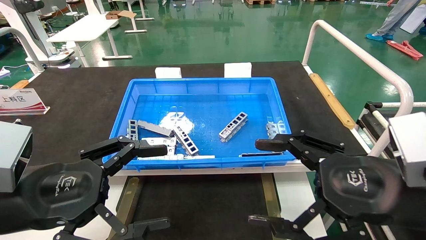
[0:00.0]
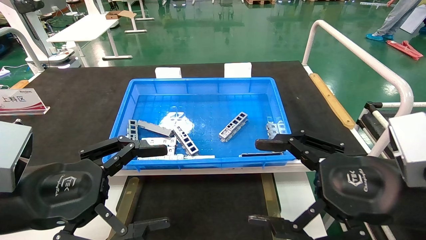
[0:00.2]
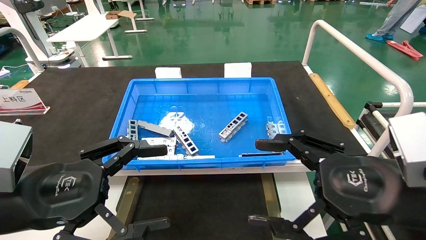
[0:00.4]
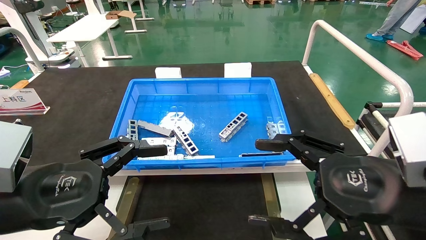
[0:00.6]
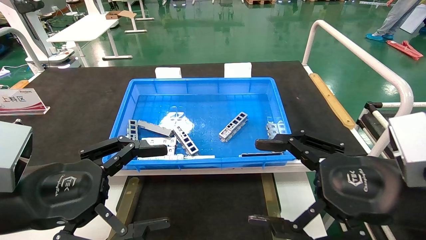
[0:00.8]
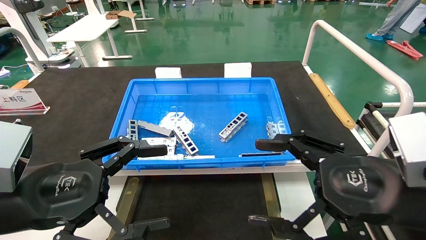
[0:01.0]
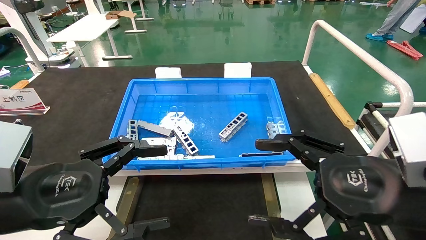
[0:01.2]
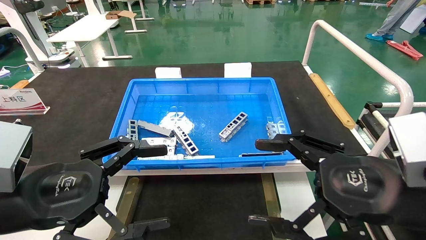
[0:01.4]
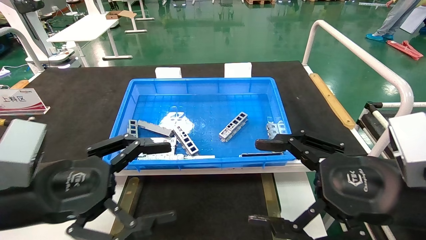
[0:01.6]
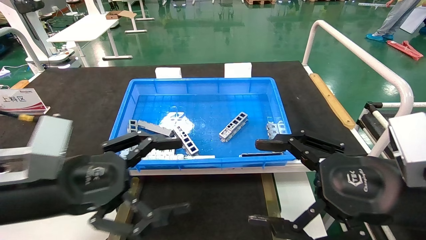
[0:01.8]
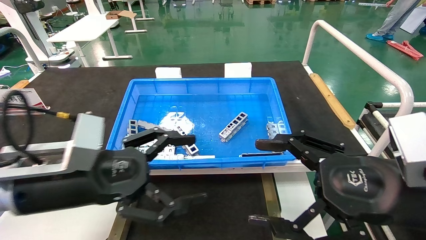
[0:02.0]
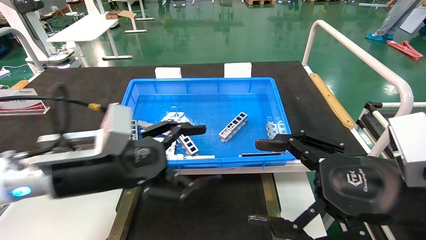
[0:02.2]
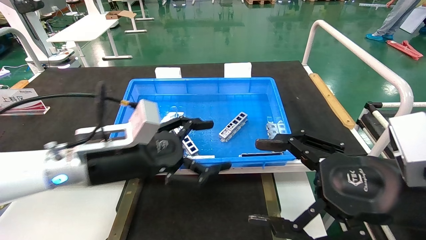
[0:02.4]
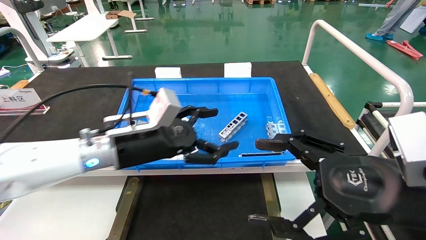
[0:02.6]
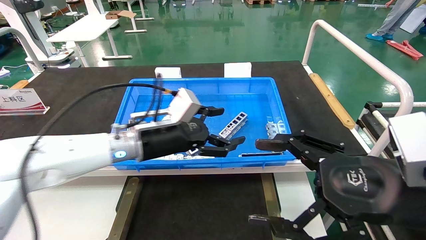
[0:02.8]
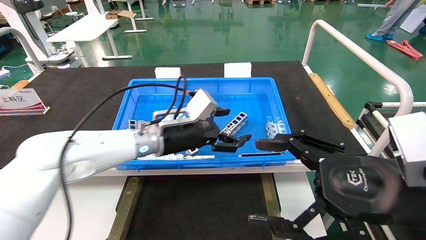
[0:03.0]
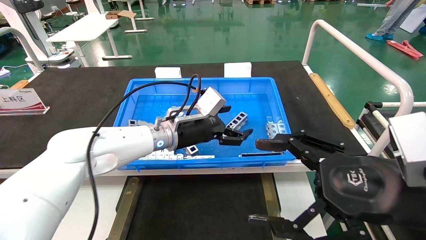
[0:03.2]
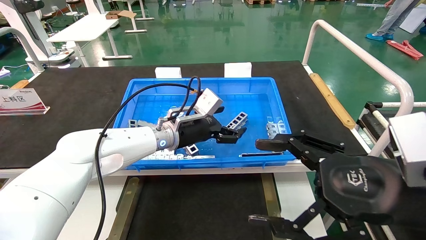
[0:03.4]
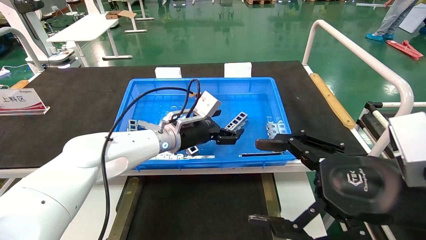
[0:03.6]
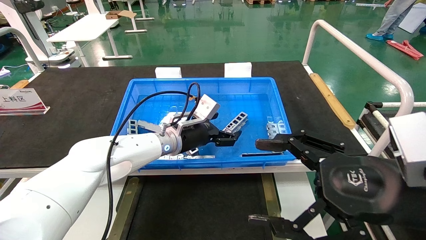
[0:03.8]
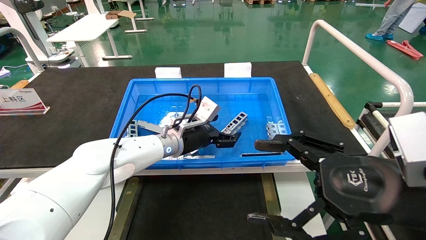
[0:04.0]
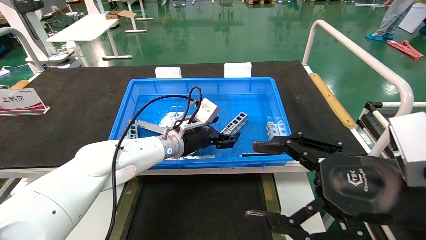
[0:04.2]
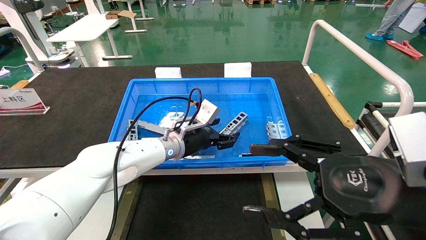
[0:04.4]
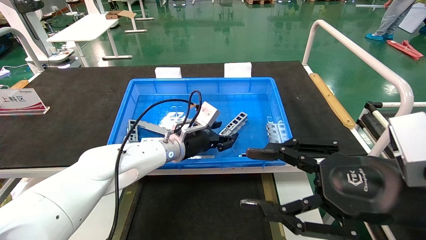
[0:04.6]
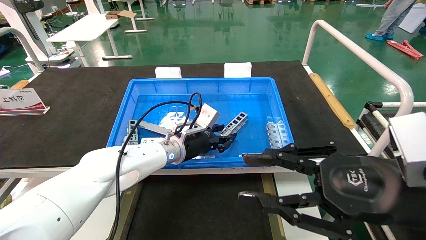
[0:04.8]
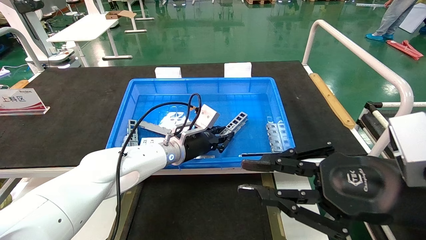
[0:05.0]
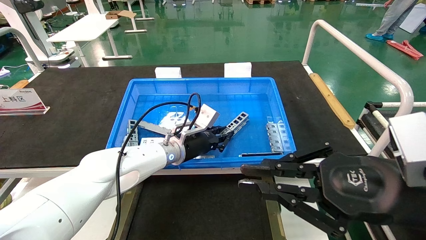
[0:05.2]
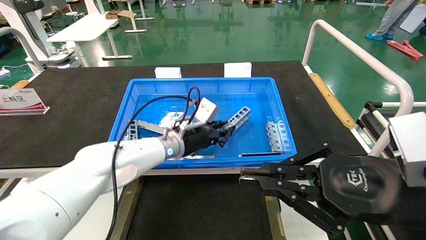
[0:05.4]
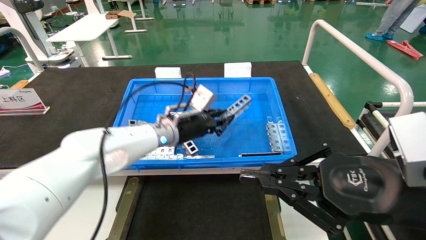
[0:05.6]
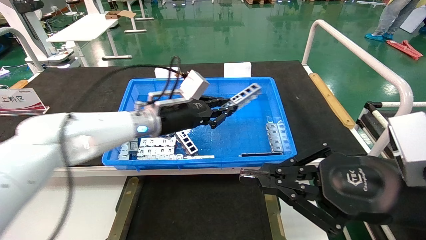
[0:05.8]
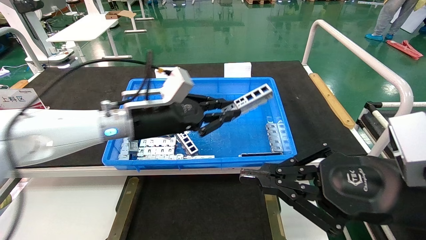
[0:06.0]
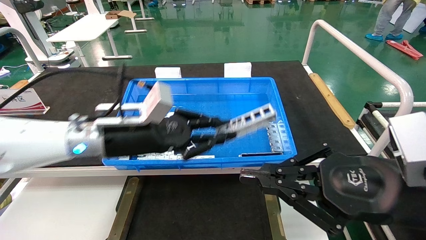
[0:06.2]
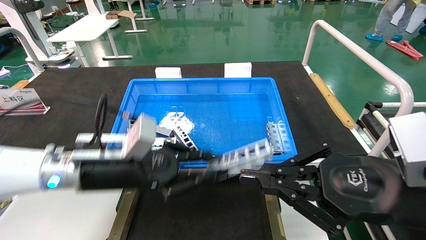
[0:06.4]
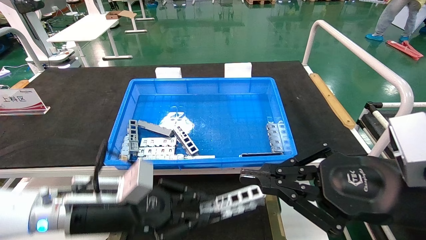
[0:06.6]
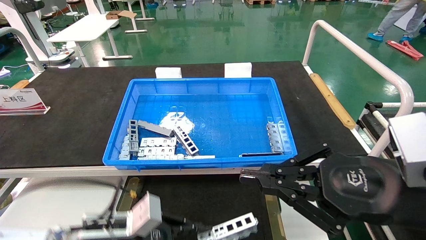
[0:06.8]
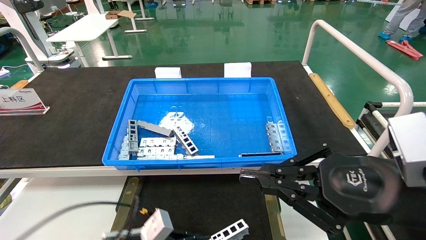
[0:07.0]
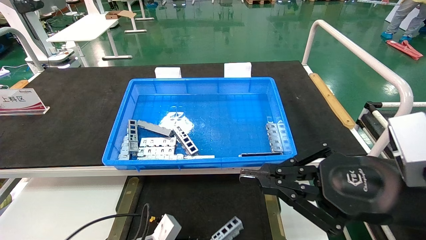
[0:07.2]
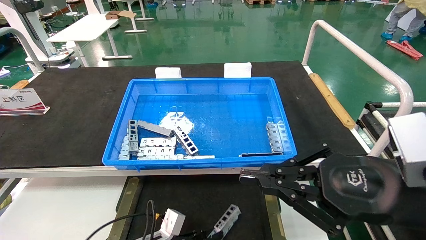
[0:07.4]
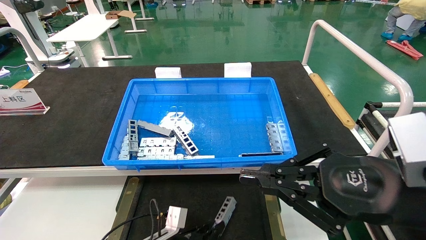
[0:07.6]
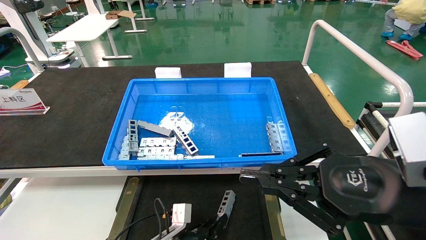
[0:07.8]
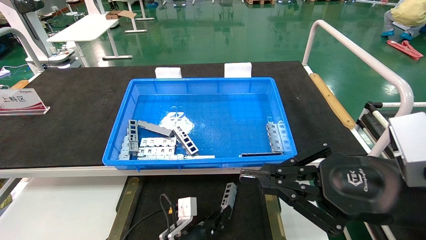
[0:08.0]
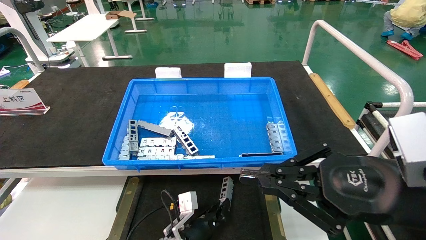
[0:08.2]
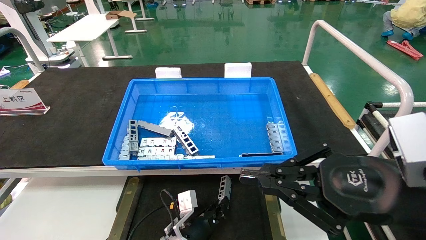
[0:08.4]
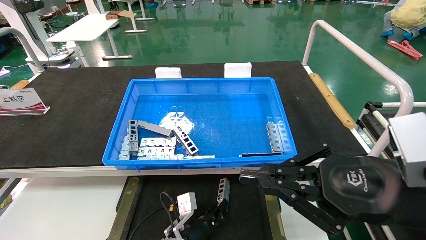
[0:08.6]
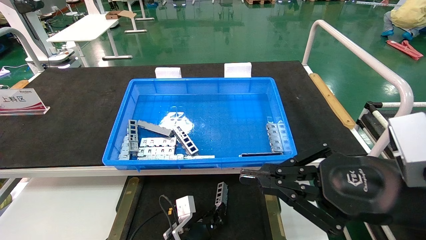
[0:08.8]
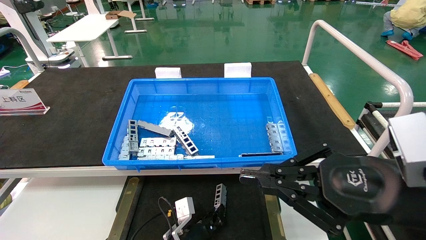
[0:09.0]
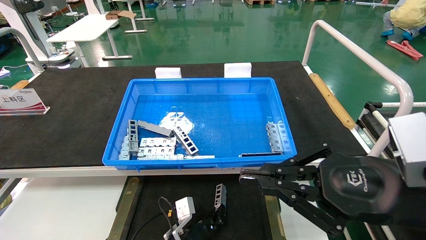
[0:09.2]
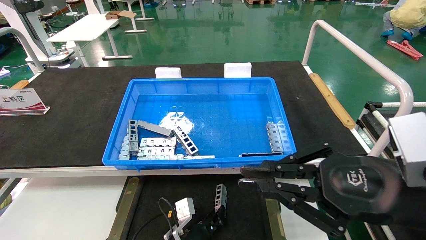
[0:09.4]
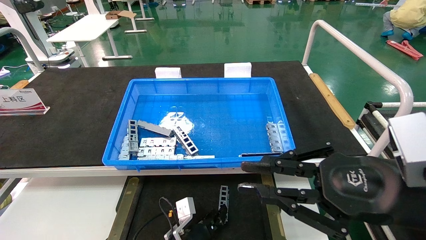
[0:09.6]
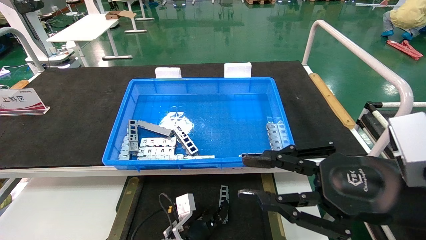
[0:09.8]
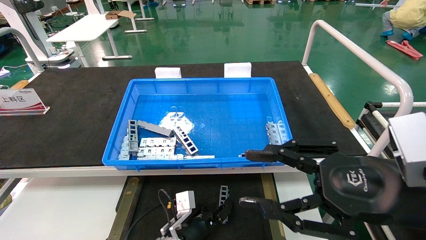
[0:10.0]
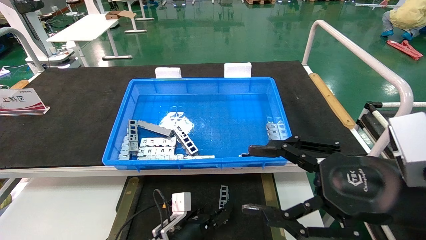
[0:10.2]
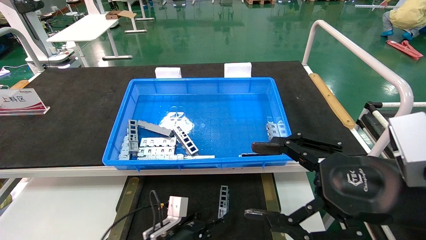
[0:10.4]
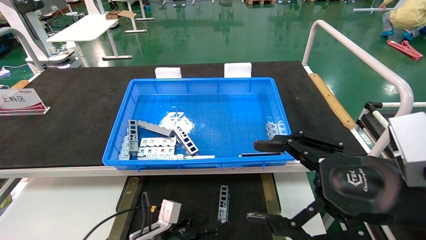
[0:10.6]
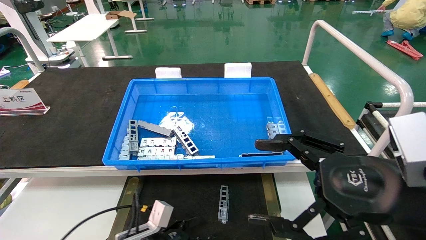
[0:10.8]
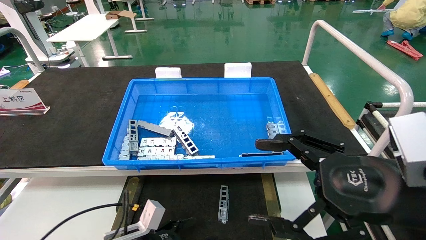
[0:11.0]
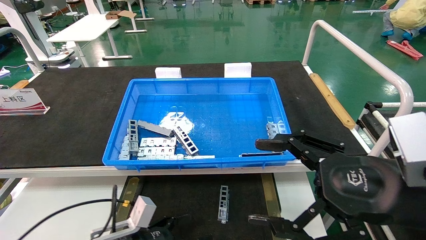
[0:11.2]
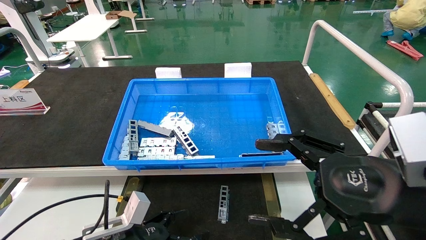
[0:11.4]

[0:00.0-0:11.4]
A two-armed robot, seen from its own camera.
Task of the whole recording: Grasp the part with one hand and place it on the black container.
Step, 0:01.8 to 0:05.0: Pick up the front USB bracket from the feeding area.
Step, 0:05.2 to 0:09.8: Place the front USB bracket into the box.
0:00.0 to 0:01.4: Both grippers stay put.
0:01.4 to 0:02.8: The left gripper travels forward and to the right by about 25 cm.
0:02.8 to 0:04.2: The left gripper goes roughly 10 cm forward.
0:04.2 to 0:05.6: The left gripper closes its fingers. Meanwhile the right gripper closes.
0:05.6 to 0:07.2: The left gripper travels downward and backward by some 30 cm.
0:07.2 to 0:08.6: The left gripper travels to the right and forward by about 10 cm.
0:08.6 to 0:10.0: The right gripper opens. The left gripper opens.
0:10.0 to 0:11.4: The right gripper opens up; the left gripper goes approximately 20 cm to the left, upward and backward, and opens up.
